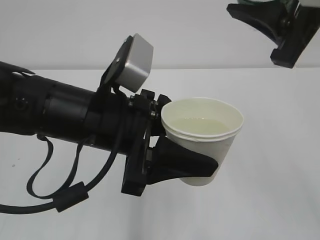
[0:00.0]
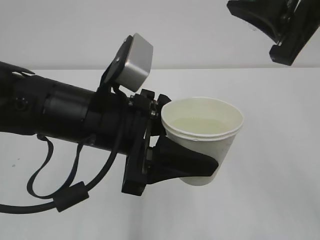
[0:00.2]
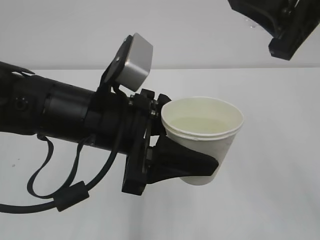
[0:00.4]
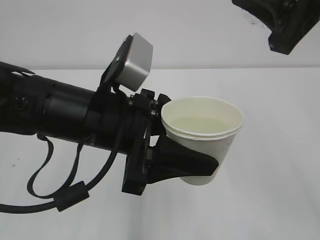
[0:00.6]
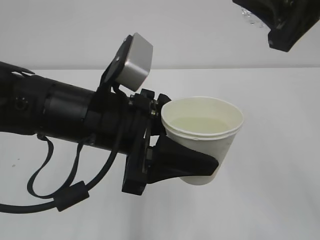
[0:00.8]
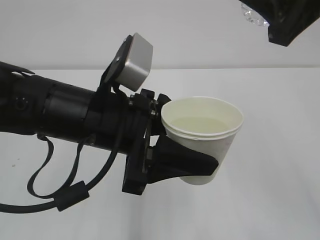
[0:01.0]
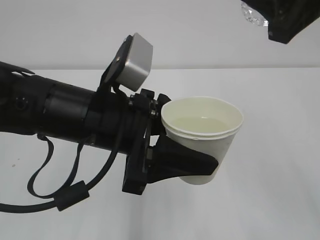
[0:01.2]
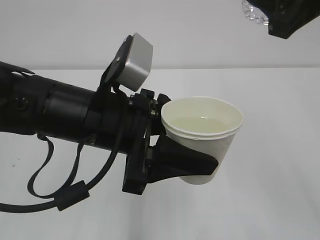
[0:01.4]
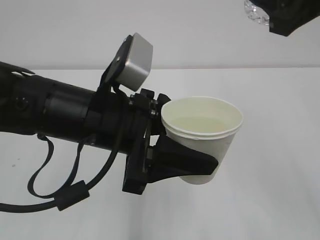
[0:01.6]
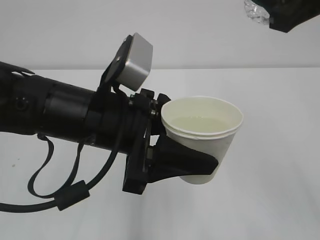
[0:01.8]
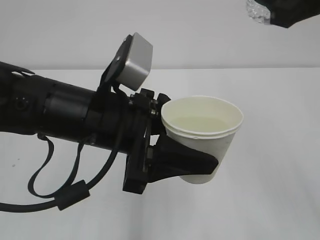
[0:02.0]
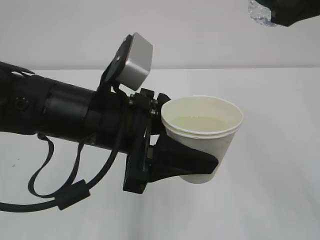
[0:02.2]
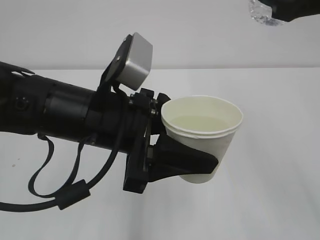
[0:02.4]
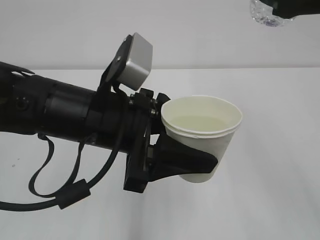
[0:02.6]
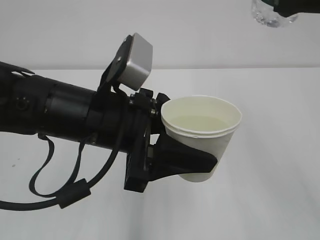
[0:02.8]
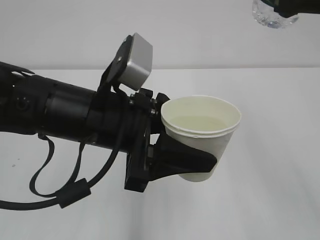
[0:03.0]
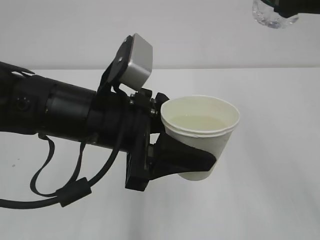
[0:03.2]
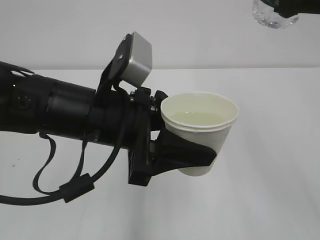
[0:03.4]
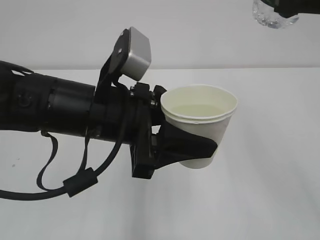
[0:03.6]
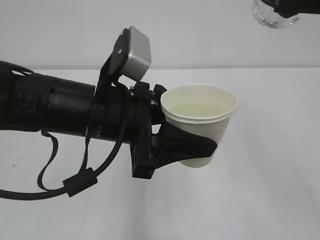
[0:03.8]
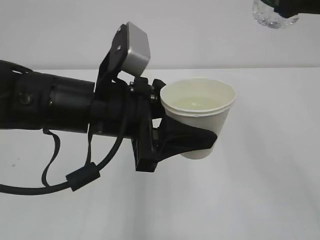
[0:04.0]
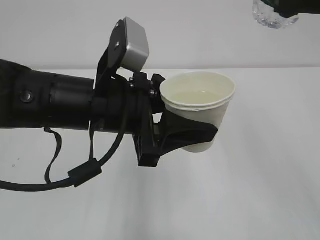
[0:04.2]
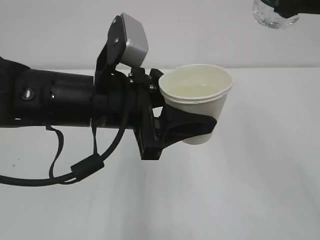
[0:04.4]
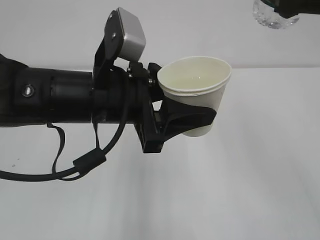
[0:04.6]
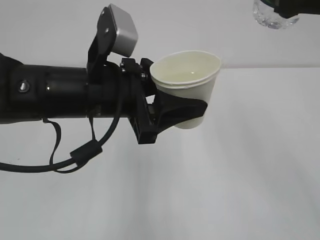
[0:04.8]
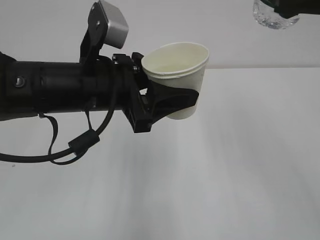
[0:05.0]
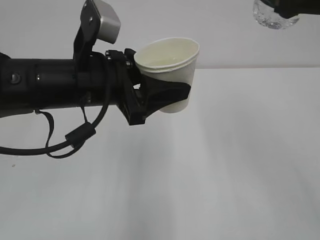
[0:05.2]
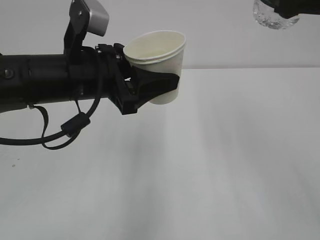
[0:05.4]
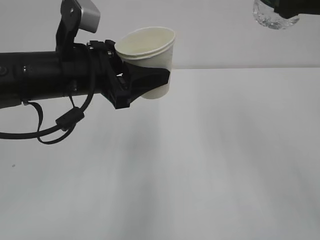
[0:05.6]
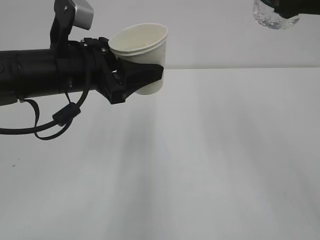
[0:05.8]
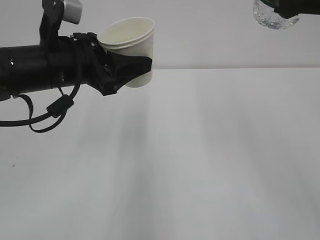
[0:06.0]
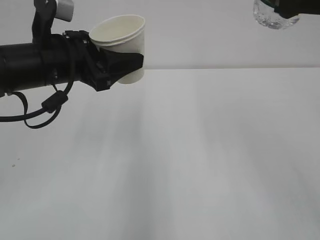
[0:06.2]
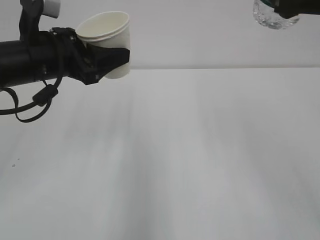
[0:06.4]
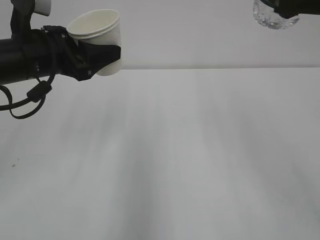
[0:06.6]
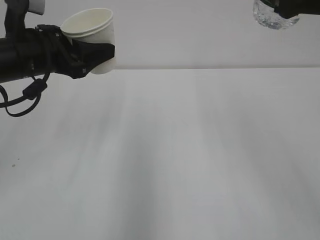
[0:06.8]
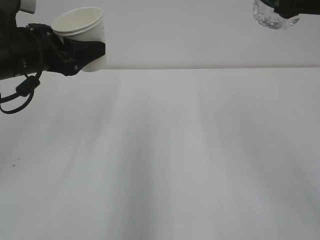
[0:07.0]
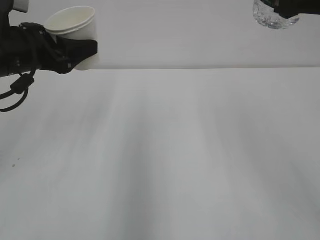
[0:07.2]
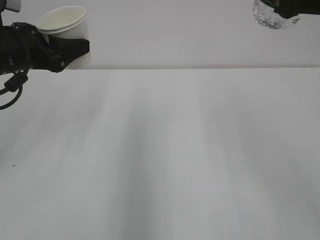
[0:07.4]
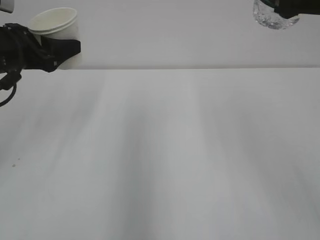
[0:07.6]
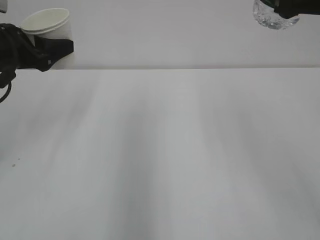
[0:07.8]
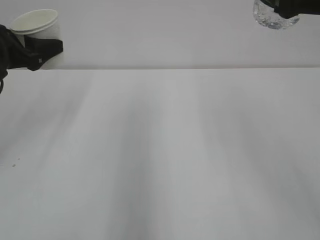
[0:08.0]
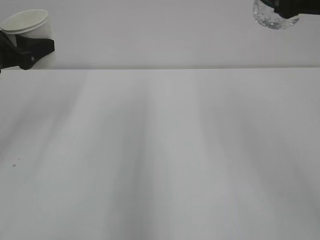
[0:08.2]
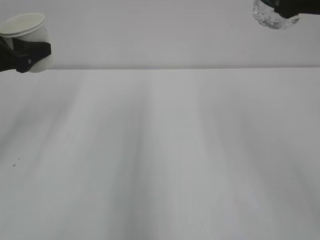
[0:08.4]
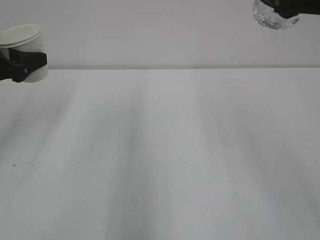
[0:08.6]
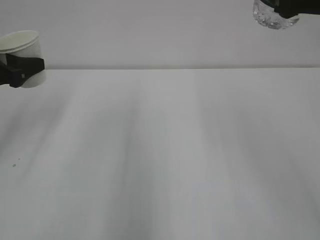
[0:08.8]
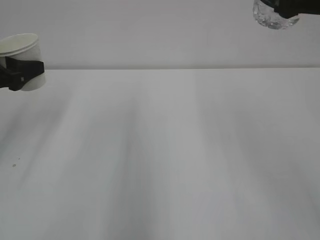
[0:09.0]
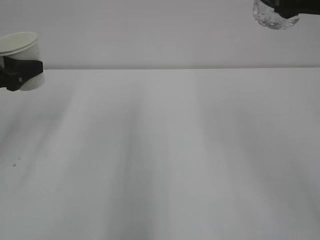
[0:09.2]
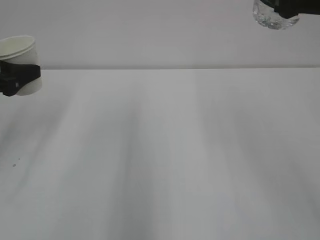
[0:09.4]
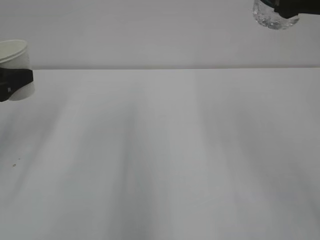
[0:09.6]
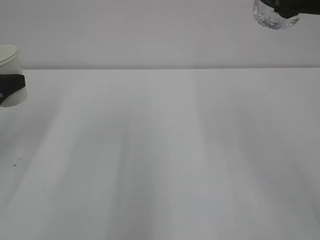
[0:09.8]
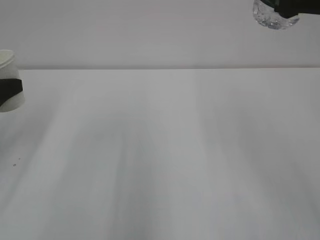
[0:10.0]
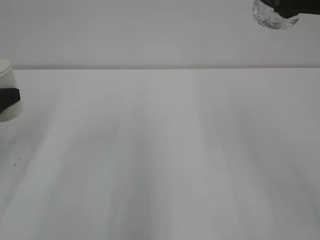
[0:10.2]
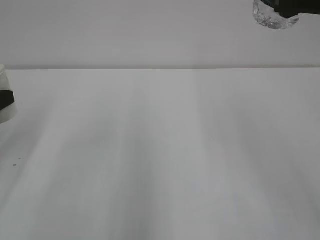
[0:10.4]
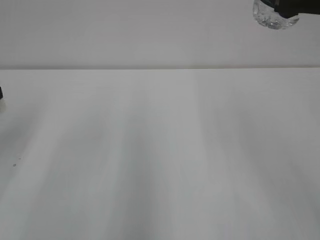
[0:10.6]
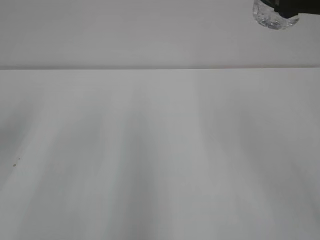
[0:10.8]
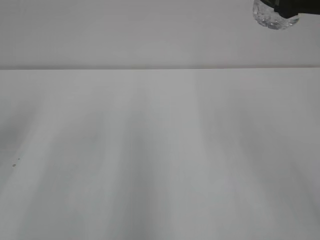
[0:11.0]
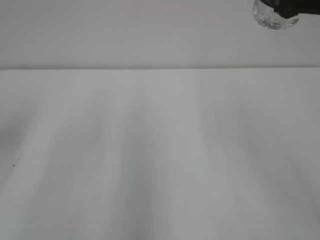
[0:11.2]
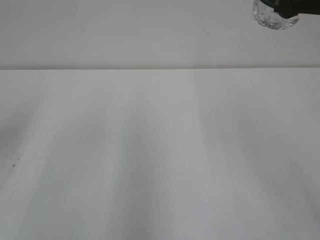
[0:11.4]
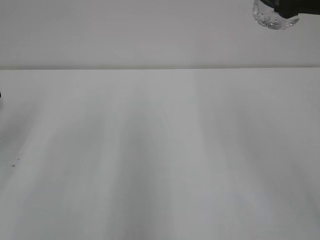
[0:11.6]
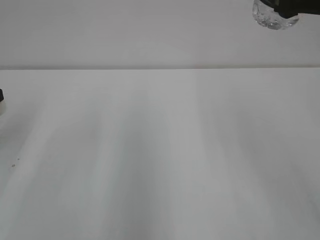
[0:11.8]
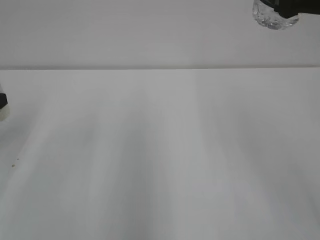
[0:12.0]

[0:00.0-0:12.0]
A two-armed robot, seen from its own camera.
0:01.6 to 0:03.0: The grippers stay close to where they were, moving slightly.
0:04.4 to 0:06.0: The left gripper shifts approximately 10 cm to the left and forward.
0:06.0 to 0:07.6: The left gripper moves to the left, approximately 10 cm.
0:07.6 to 0:09.0: The left gripper moves to the left, approximately 5 cm.
0:09.0 to 0:10.4: The left gripper heads backward, covering roughly 5 cm.

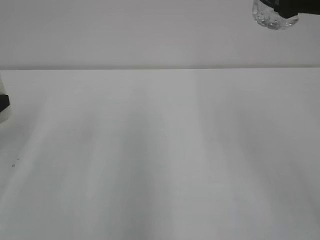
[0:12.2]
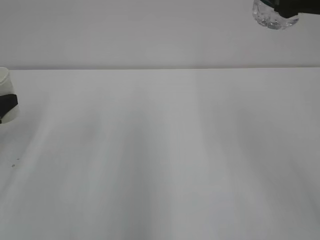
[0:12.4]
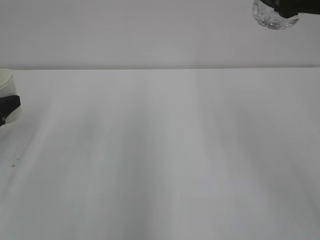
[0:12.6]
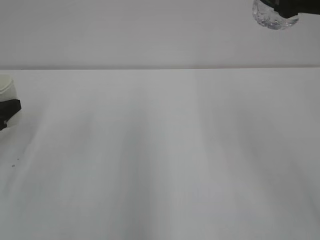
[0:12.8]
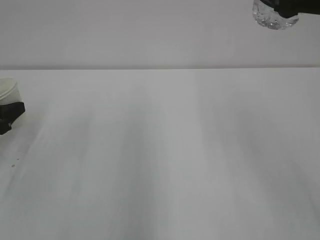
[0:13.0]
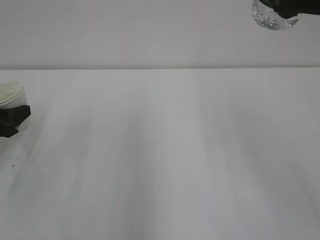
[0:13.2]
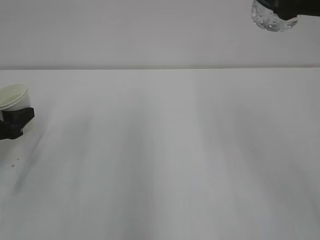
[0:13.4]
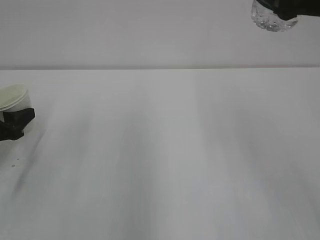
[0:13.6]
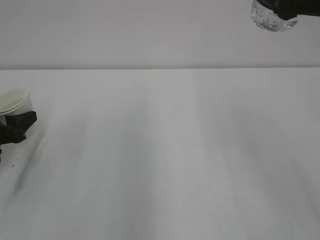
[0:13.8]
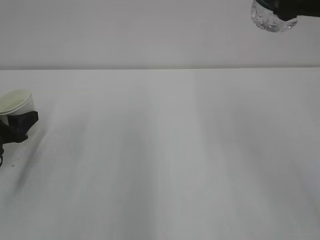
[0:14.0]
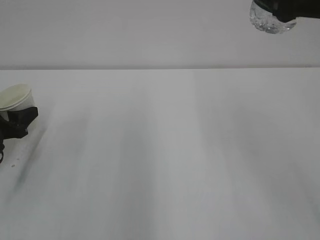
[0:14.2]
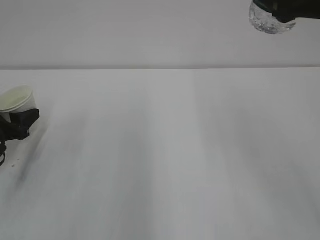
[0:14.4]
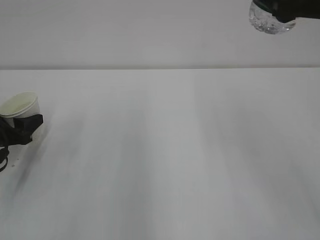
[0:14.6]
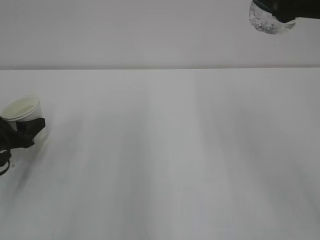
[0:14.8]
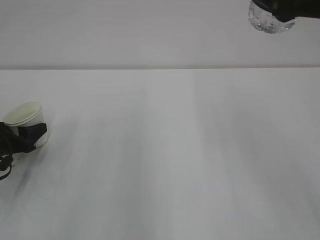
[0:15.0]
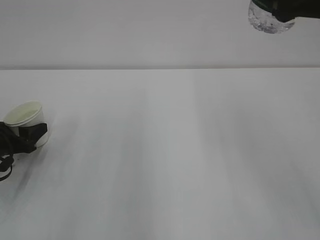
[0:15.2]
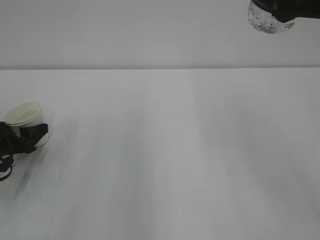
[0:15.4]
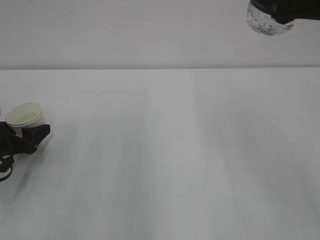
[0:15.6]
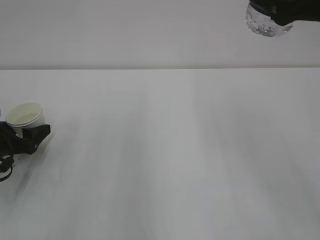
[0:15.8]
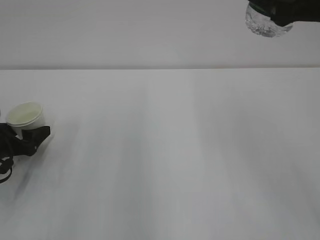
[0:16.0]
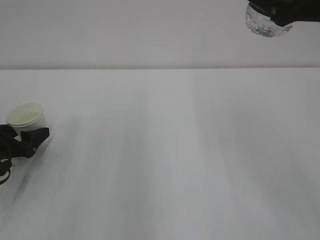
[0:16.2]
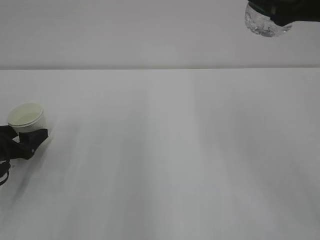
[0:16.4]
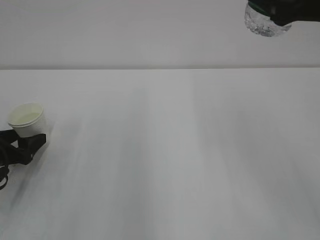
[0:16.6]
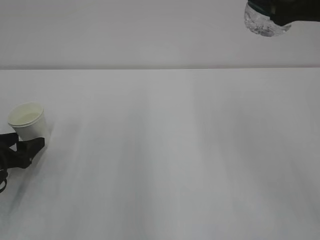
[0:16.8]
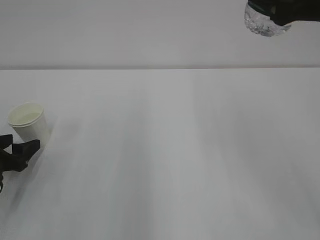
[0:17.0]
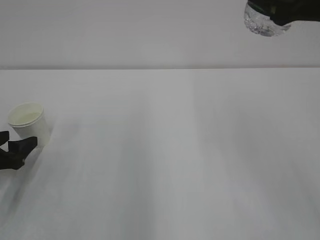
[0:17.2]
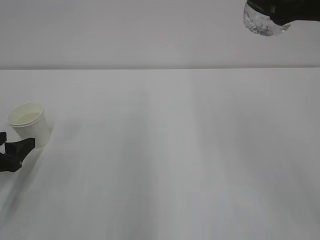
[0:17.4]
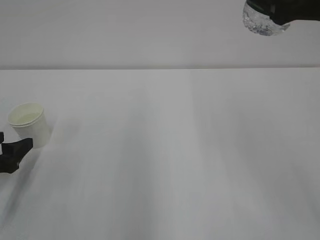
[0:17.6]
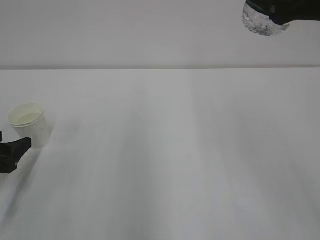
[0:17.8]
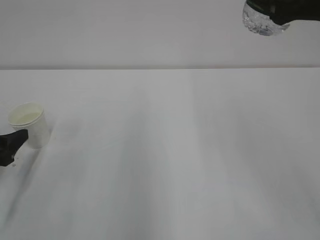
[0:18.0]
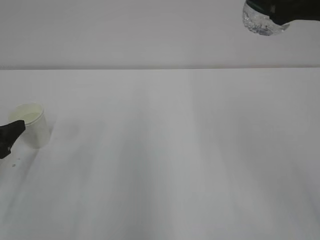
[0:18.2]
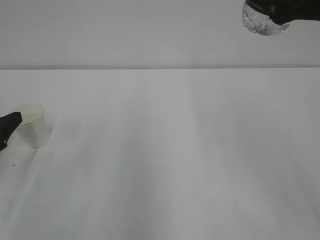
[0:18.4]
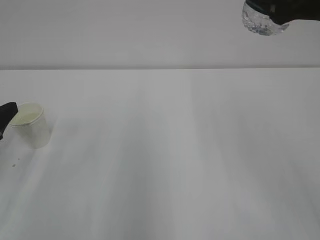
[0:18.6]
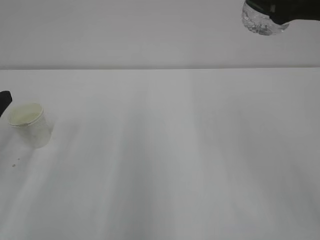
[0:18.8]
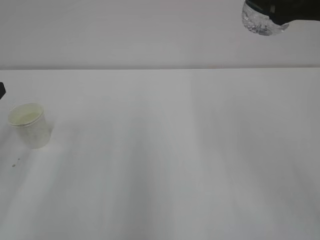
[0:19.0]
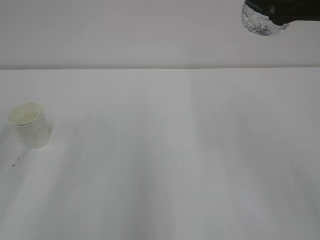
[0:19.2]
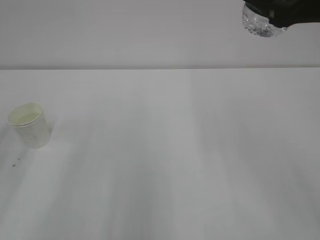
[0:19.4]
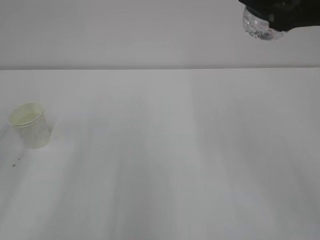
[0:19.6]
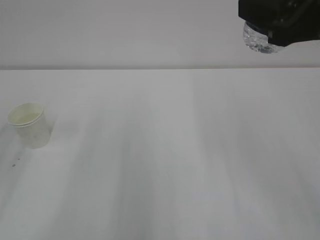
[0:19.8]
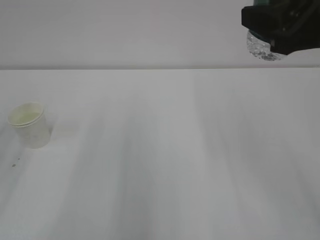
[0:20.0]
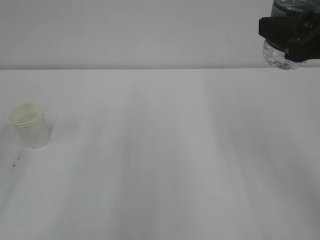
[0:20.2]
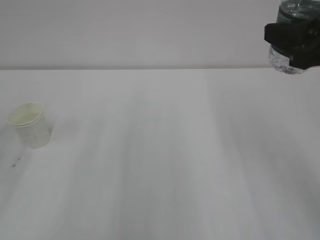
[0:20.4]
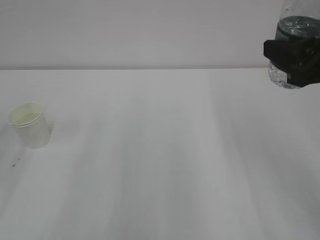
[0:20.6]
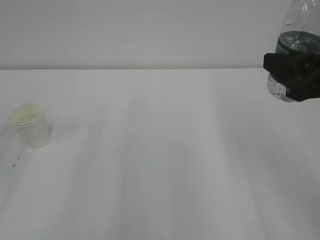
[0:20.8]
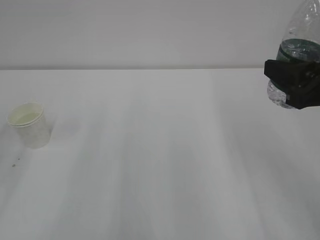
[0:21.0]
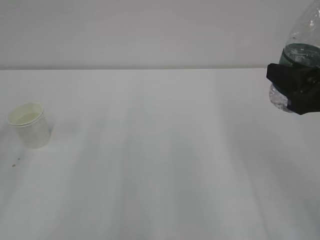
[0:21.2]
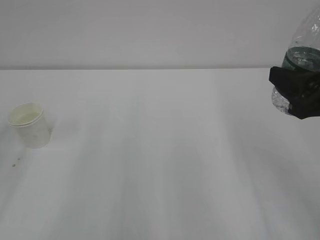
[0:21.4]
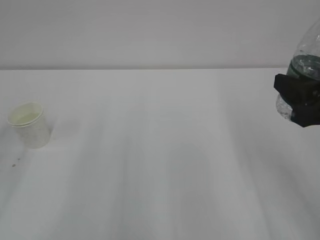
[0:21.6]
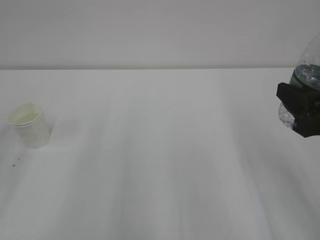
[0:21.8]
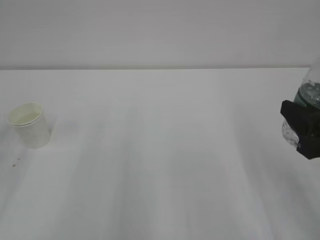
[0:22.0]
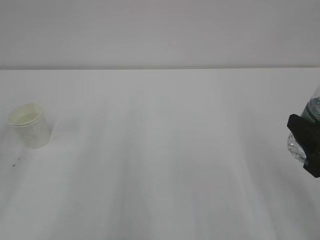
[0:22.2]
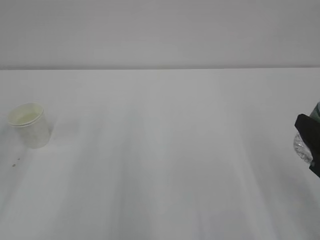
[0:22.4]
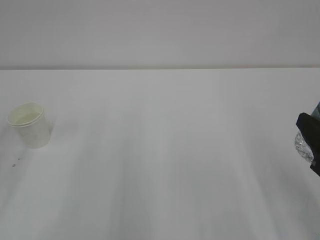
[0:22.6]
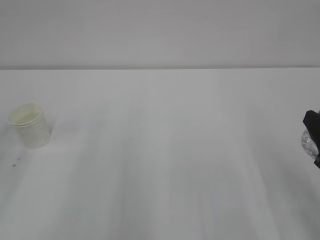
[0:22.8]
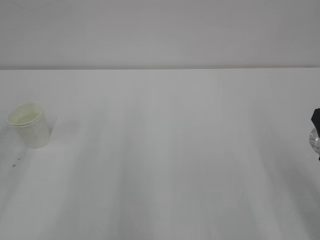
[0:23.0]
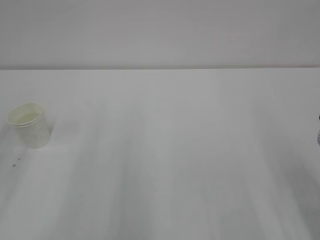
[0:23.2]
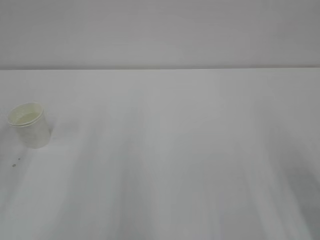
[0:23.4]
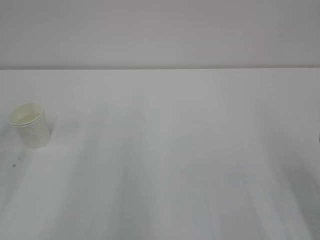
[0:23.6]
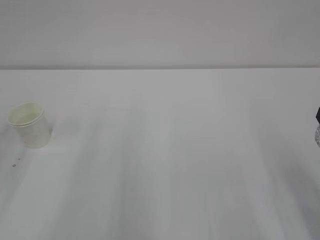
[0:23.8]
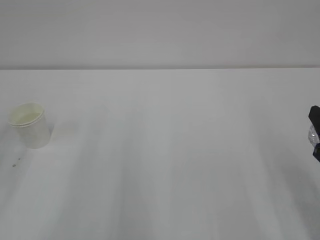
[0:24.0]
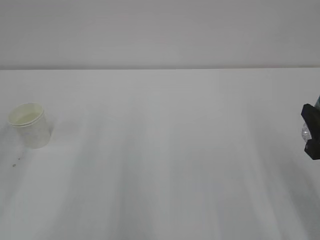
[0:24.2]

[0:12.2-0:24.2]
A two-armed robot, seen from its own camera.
0:12.2 to 0:13.8: The left gripper heads downward, covering about 5 cm.
0:13.8 to 0:15.2: The grippers move only a little.
0:15.2 to 0:16.6: The left gripper opens.
0:16.6 to 0:18.2: The left gripper travels upward and backward by some 10 cm.
0:18.2 to 0:19.8: The left gripper travels upward by some 10 cm.
0:19.8 to 0:21.2: The right gripper travels downward by about 10 cm.
0:21.2 to 0:22.6: The right gripper shifts approximately 10 cm downward and backward.
0:22.6 to 0:24.2: The grippers make only small movements.
